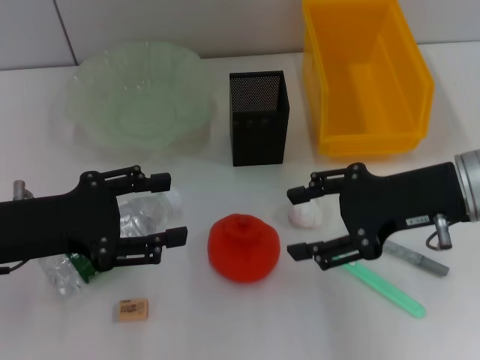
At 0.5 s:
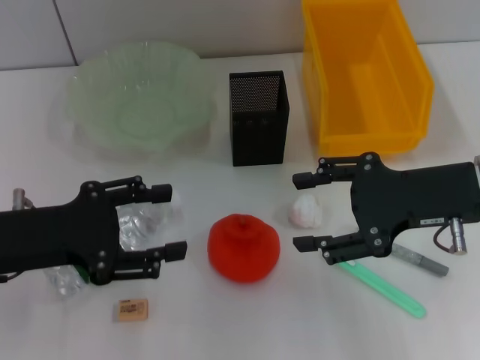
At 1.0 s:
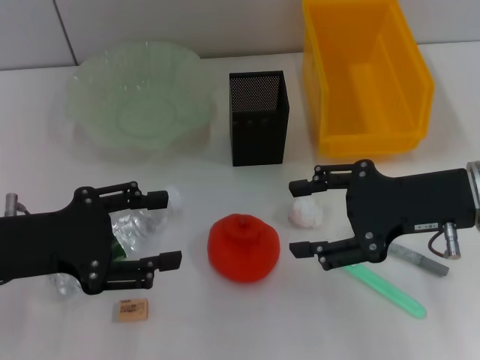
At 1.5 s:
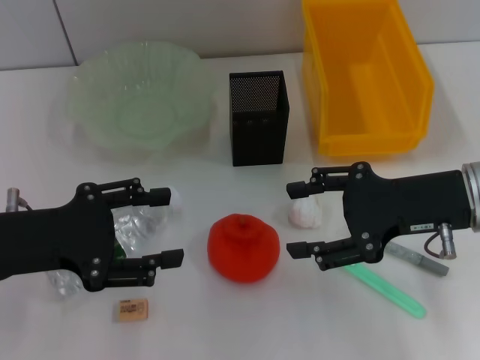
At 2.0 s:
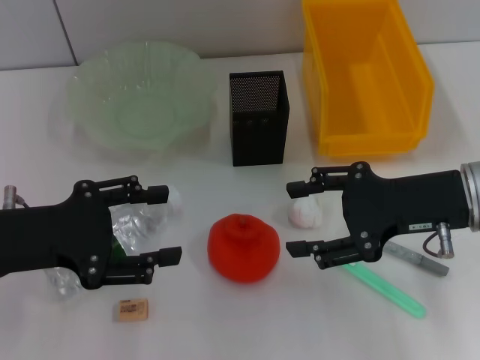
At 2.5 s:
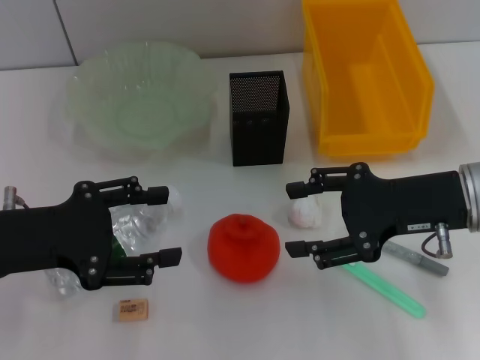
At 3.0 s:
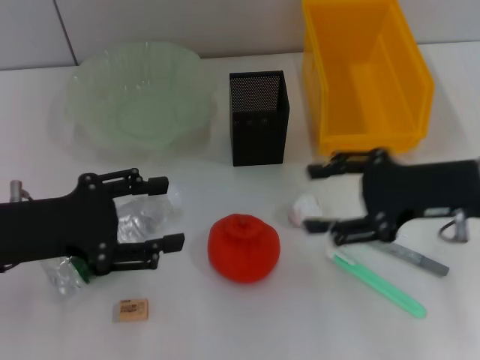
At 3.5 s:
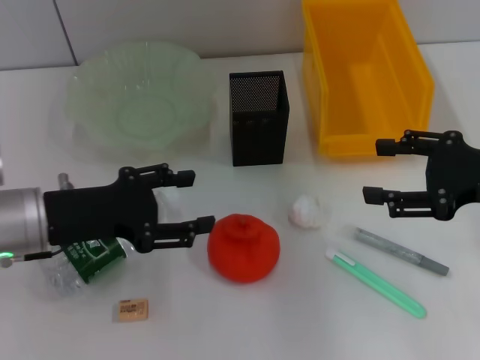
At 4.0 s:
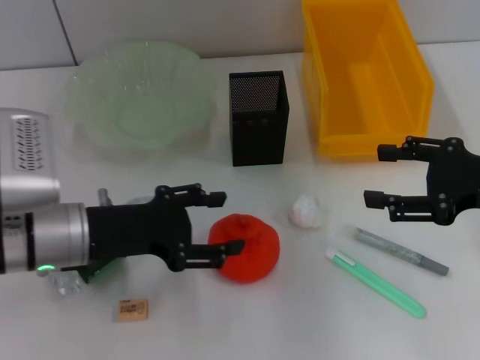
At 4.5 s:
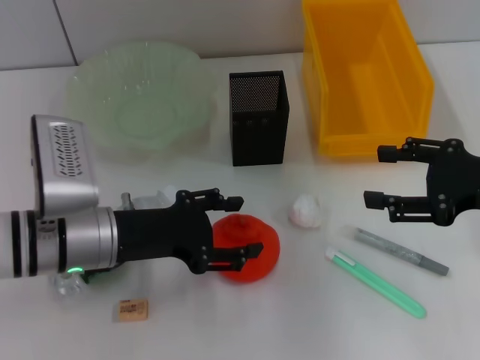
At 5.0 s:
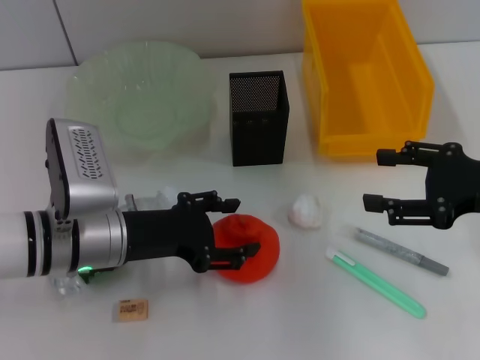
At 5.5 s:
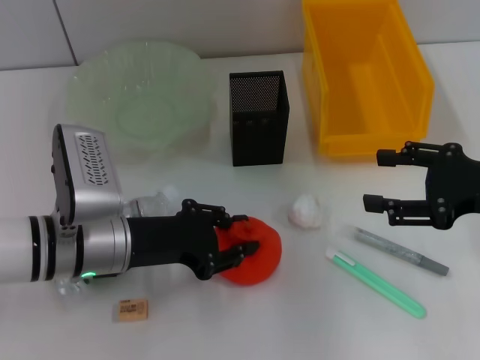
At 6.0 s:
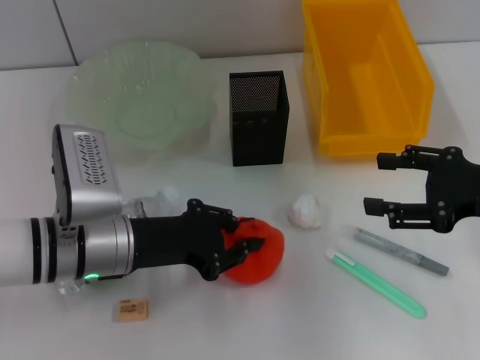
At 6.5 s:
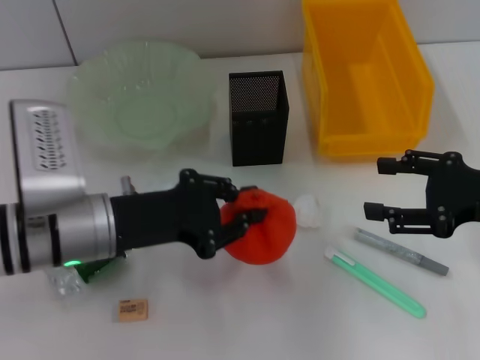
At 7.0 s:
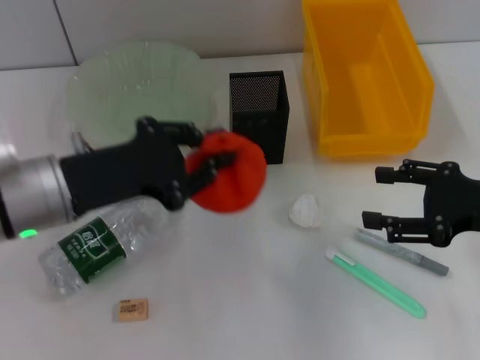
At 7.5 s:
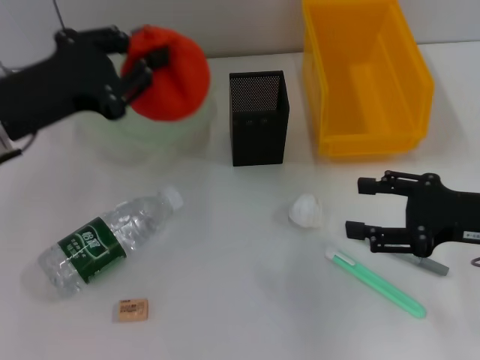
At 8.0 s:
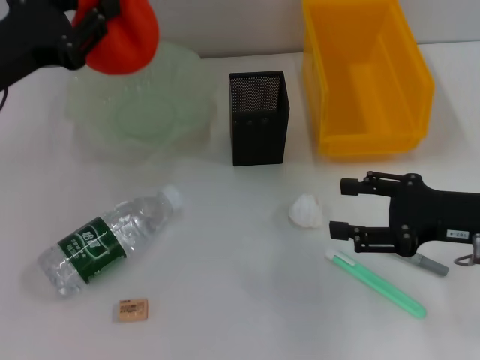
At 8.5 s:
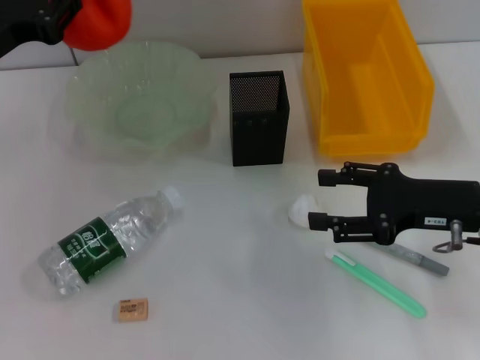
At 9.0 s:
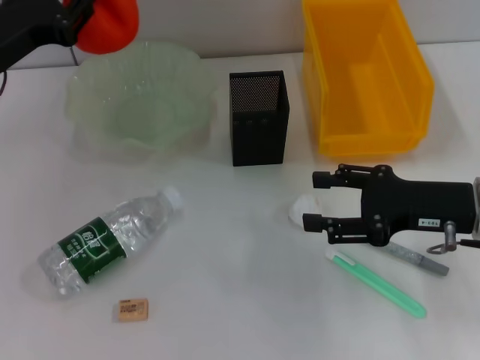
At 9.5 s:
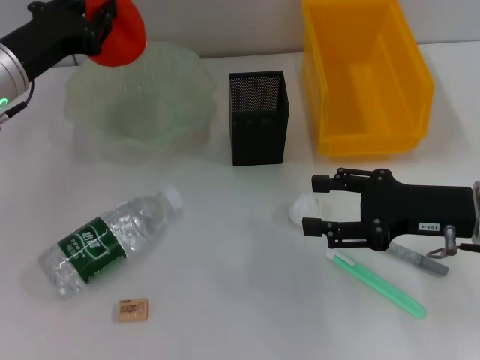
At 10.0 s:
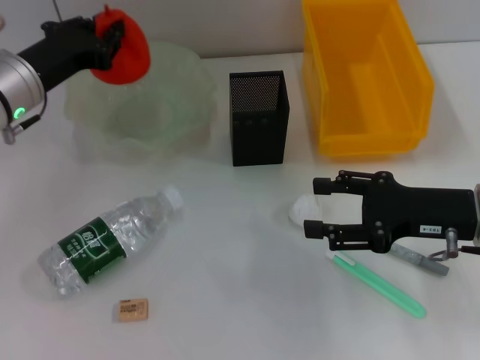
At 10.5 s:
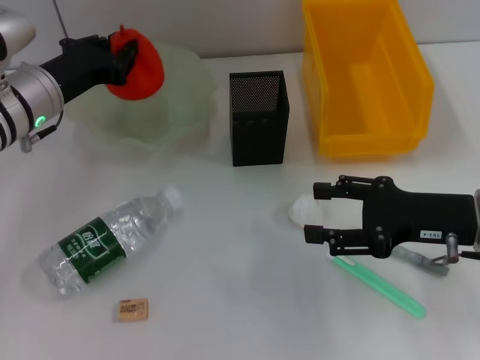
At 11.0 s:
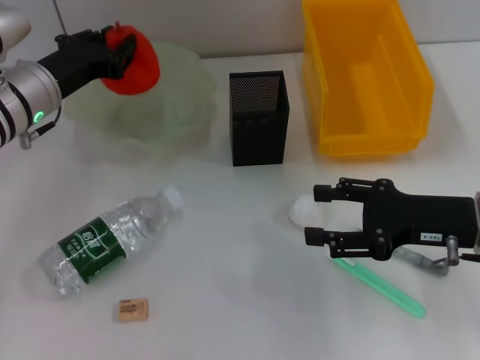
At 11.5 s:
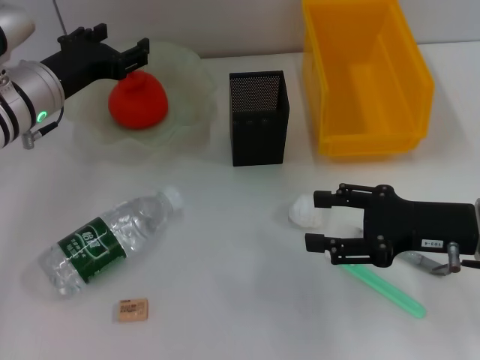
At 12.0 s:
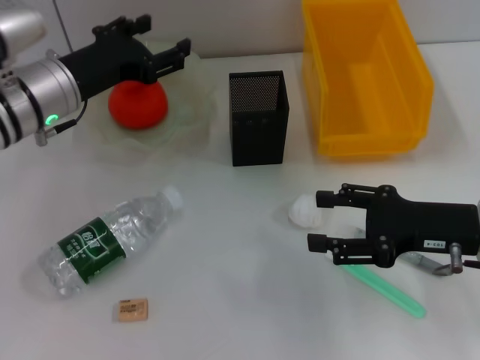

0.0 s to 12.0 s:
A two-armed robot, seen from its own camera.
Step, 0.0 to 5.5 s: Grab the orange with the left hand.
Step, 6.0 to 11.5 s: Place the orange into the fruit bowl with the left hand.
0.0 to 2.0 s: There are only small adjustments of the grippers.
2.0 to 4.0 s: The right gripper travels to the right by roughly 5 cm. Meanwhile the left gripper heads to the right and downward, covering approximately 10 cm.
4.0 to 6.0 s: The left gripper closes its fingers.
6.0 to 8.0 s: The left gripper heads upward, to the left and forward, covering about 15 cm.
8.0 to 10.0 s: The left gripper travels forward and downward by about 10 cm.
10.0 to 12.0 s: The left gripper opens up.

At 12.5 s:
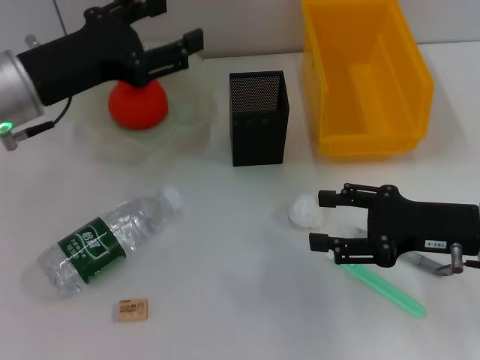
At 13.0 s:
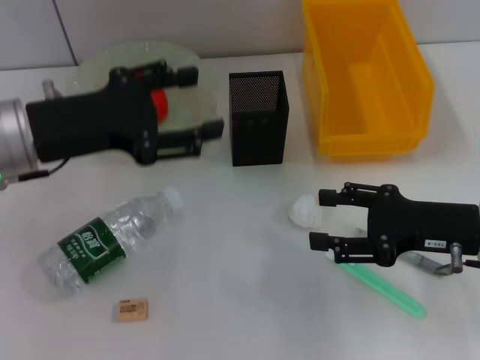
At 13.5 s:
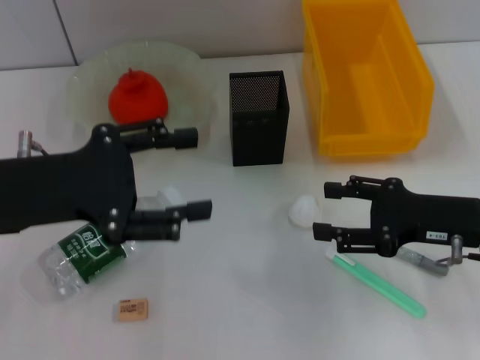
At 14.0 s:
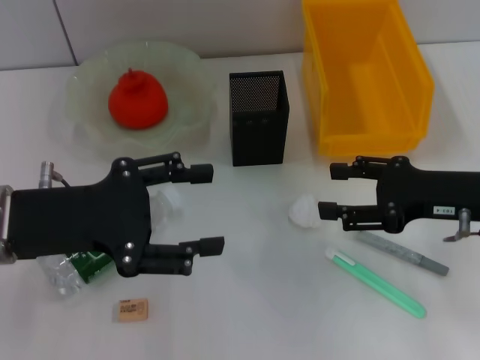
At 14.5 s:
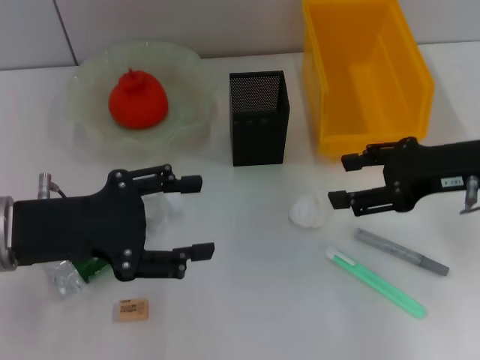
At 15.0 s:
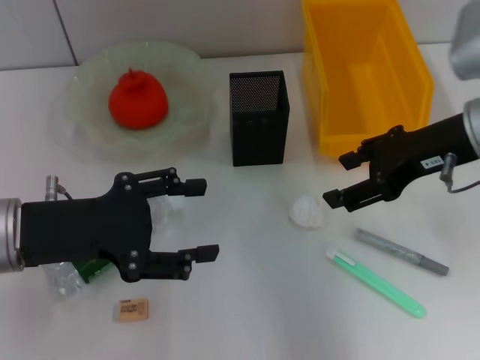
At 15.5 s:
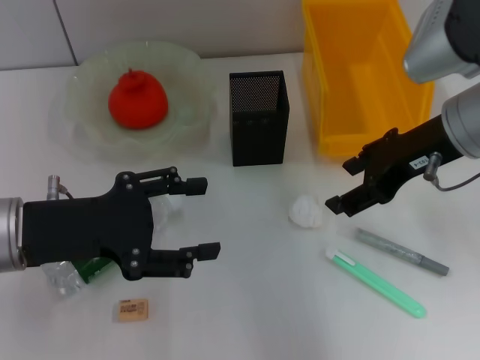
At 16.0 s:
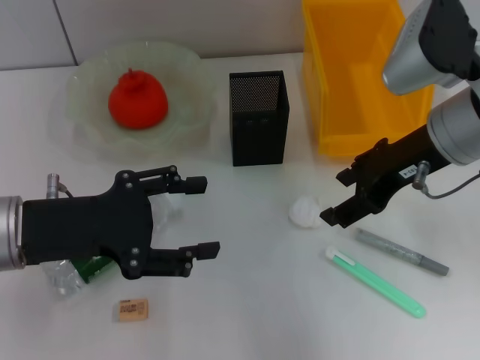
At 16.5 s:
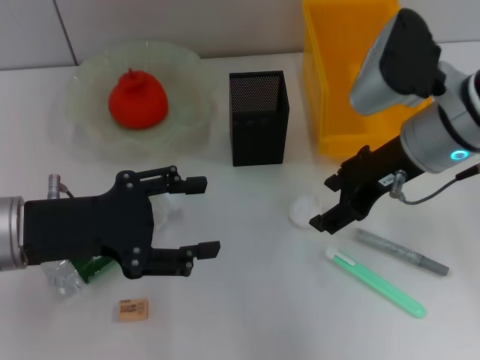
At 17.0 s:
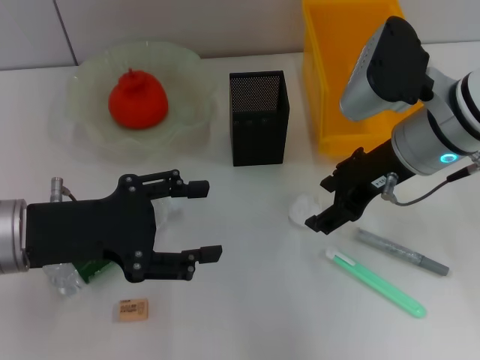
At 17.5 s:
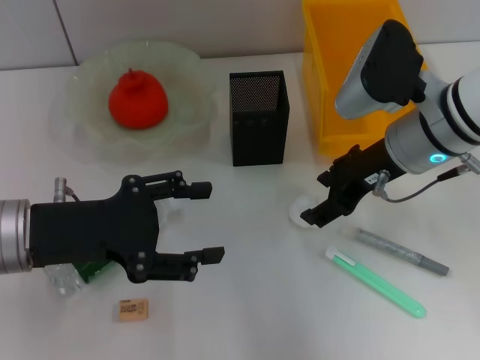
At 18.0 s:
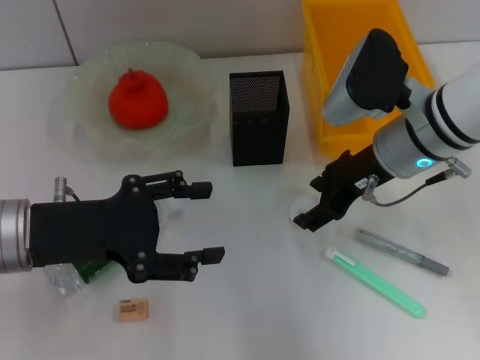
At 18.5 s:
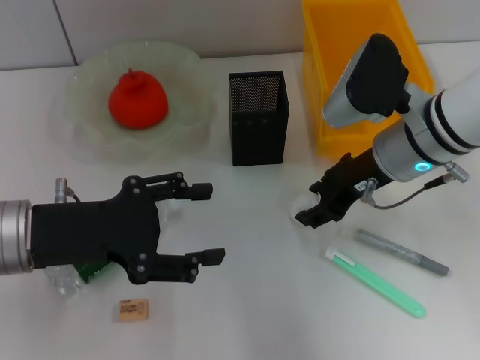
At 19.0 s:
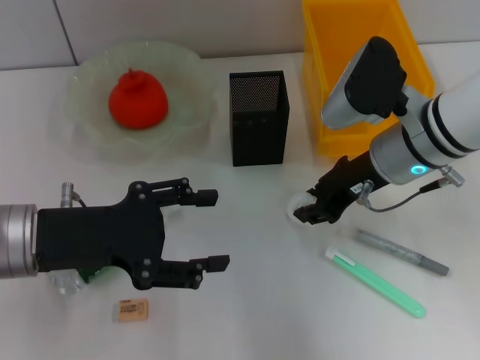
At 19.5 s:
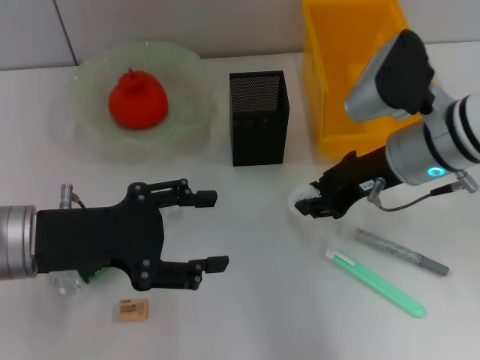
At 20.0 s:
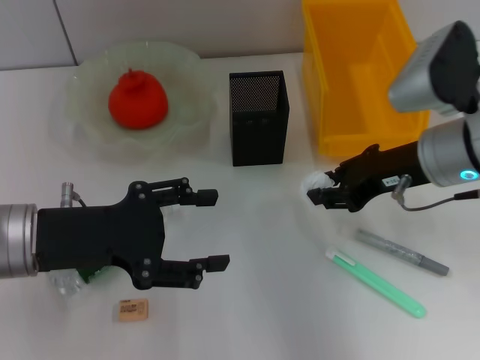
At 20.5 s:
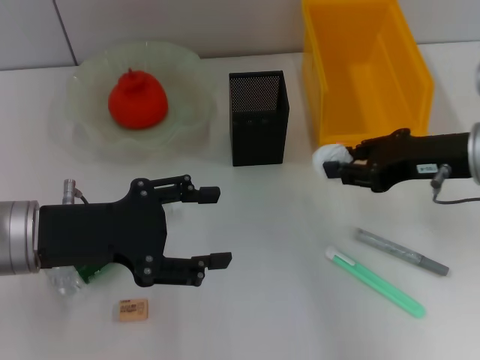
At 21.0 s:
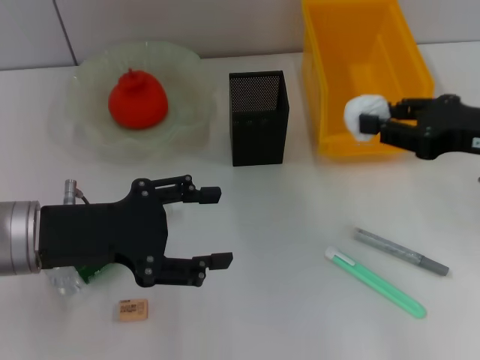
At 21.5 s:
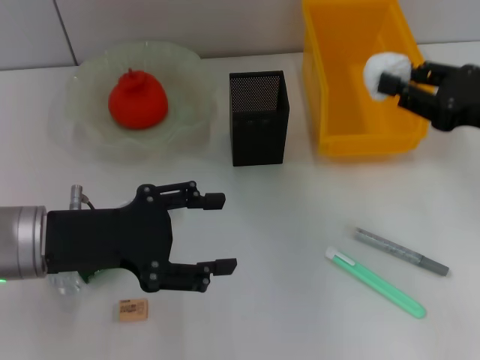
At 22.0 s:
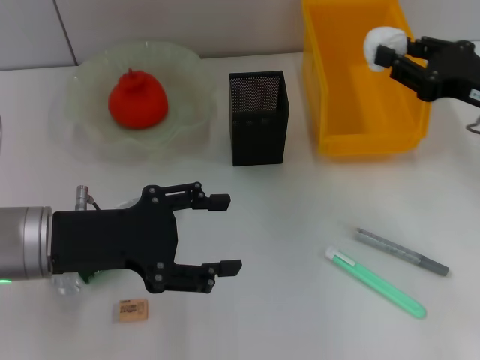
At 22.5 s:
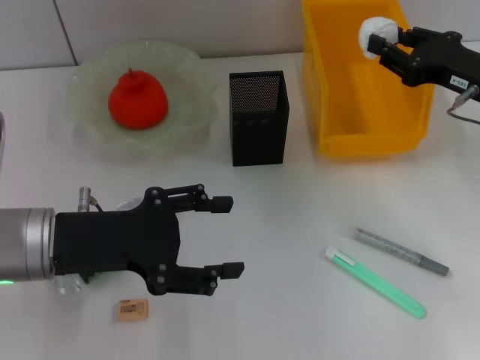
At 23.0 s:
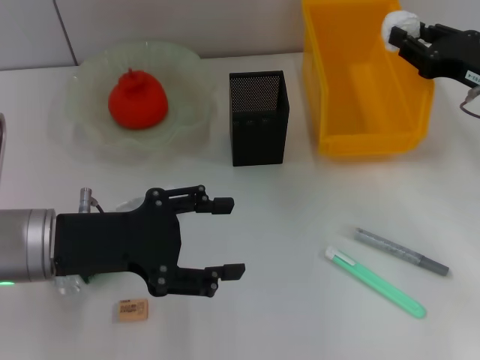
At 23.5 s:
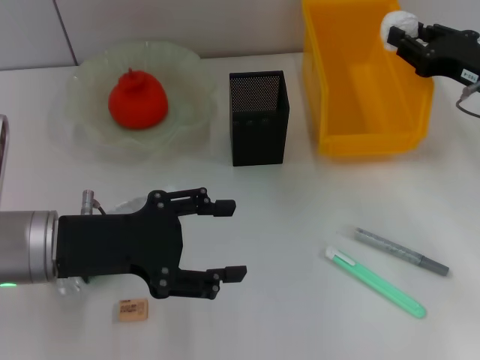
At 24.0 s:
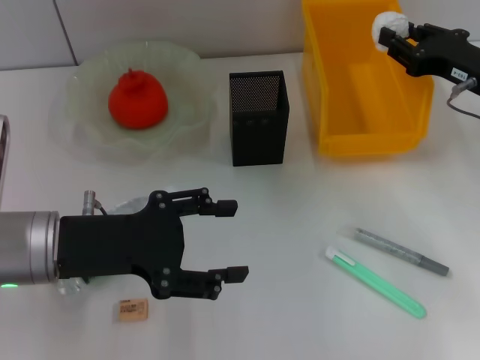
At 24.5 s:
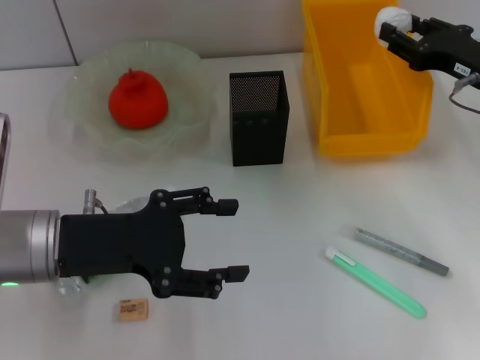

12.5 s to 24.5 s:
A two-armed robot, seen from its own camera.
Step, 12.5 to 18.5 s: Grab the paper ball with the right hand.
12.5 to 14.5 s: The left gripper heads backward, covering roughly 10 cm. The right gripper travels upward by roughly 5 cm.
14.5 to 16.5 s: The right gripper is displaced to the left by about 10 cm.
16.5 to 18.5 s: The grippers stay close to where they were, moving slightly.
18.5 to 20.5 s: The right gripper goes approximately 10 cm to the right, and closes its fingers.
20.5 to 22.5 s: The right gripper moves roughly 5 cm.
22.5 to 24.5 s: There are only small adjustments of the grippers.

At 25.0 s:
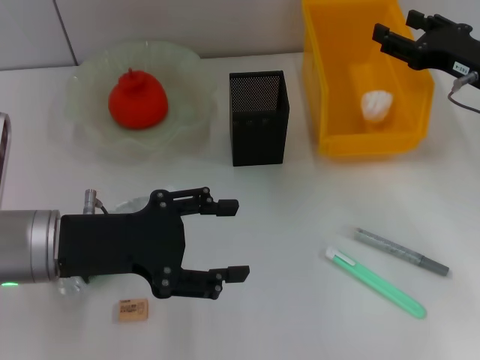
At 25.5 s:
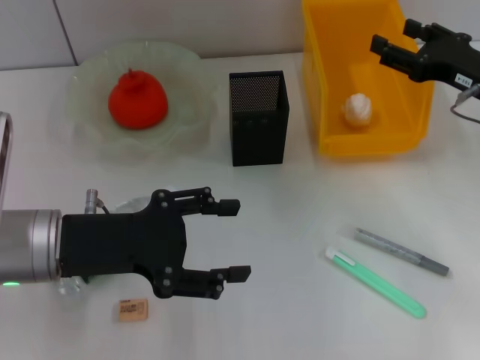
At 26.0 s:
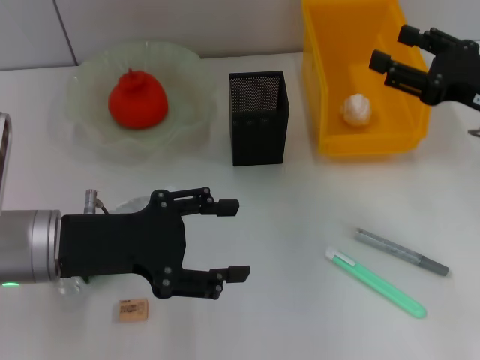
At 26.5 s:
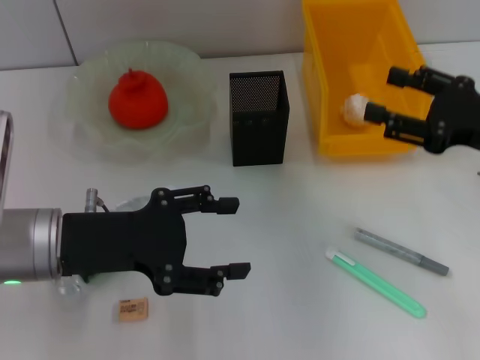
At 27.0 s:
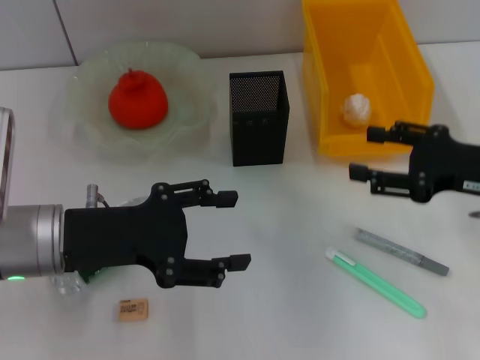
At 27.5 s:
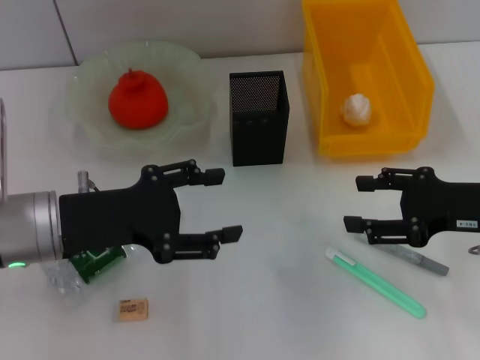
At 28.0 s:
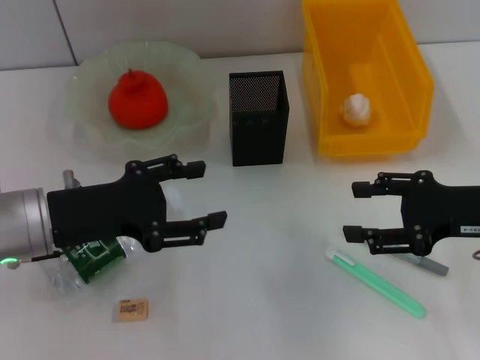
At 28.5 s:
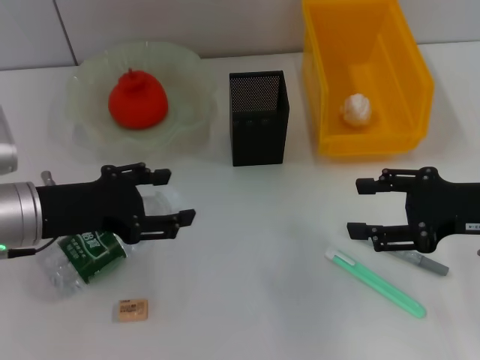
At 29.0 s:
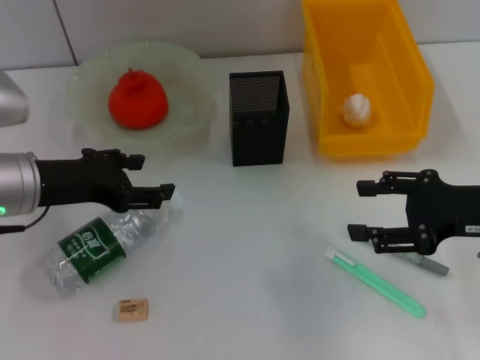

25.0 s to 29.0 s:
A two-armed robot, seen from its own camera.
25.0 to 27.0 s: The right gripper is displaced backward by some 10 cm.
27.0 to 29.0 s: The left gripper goes approximately 5 cm forward.
